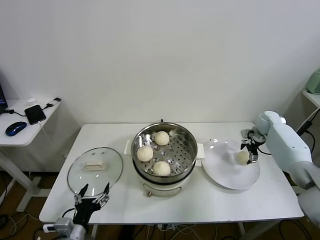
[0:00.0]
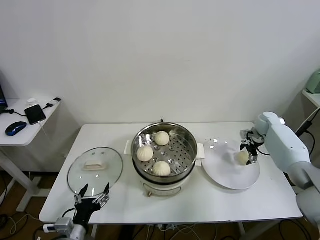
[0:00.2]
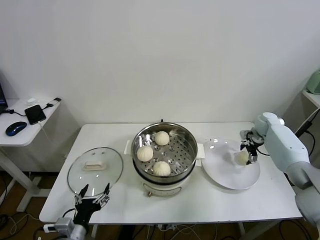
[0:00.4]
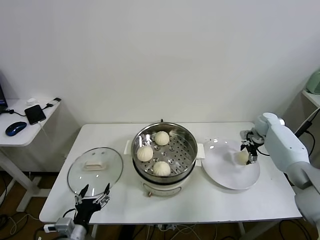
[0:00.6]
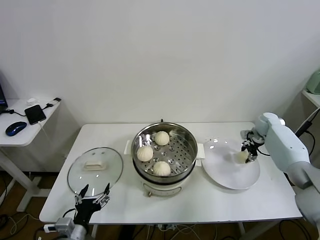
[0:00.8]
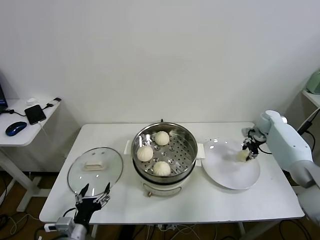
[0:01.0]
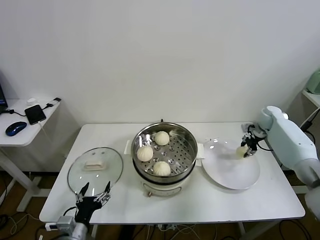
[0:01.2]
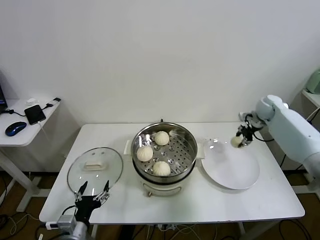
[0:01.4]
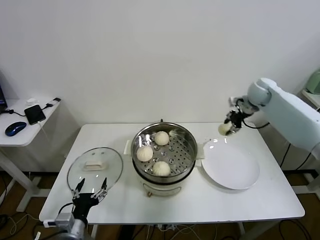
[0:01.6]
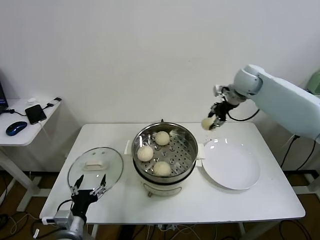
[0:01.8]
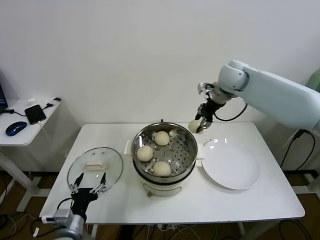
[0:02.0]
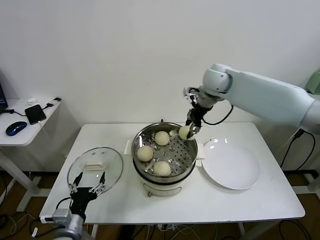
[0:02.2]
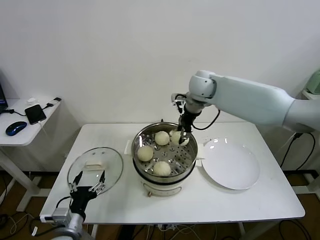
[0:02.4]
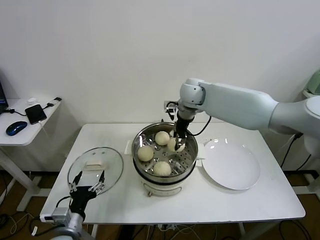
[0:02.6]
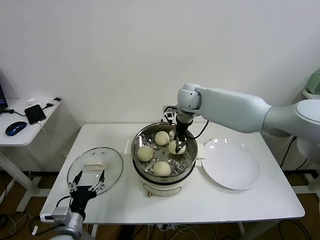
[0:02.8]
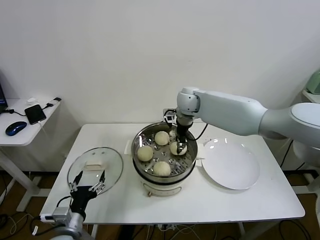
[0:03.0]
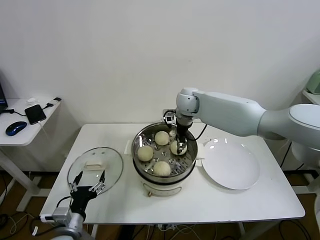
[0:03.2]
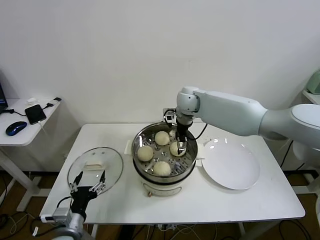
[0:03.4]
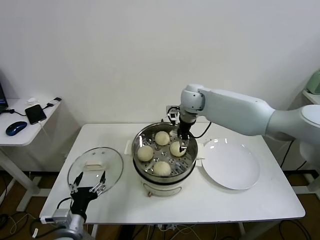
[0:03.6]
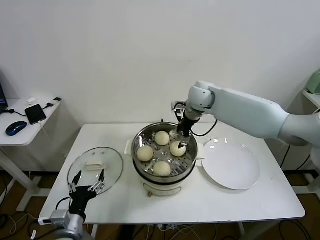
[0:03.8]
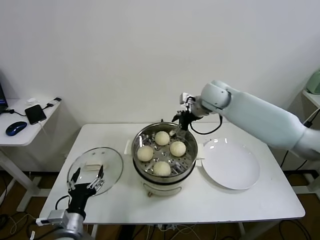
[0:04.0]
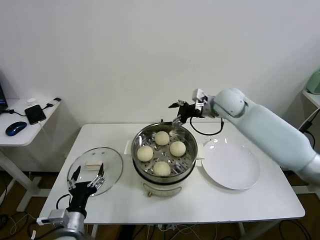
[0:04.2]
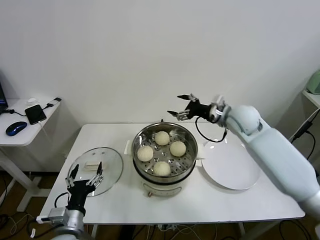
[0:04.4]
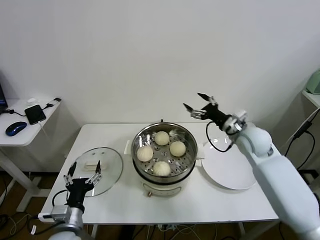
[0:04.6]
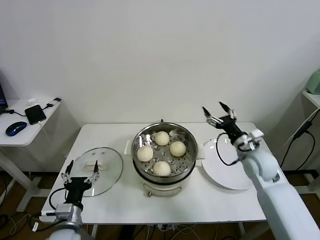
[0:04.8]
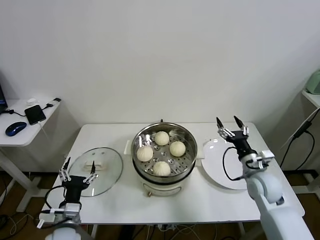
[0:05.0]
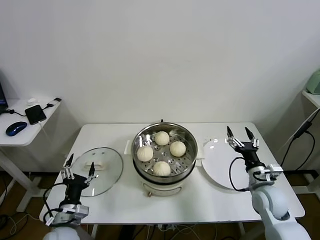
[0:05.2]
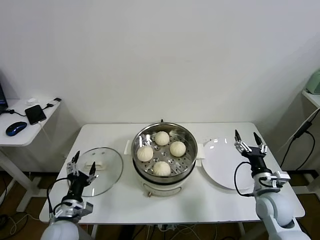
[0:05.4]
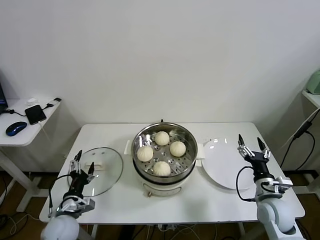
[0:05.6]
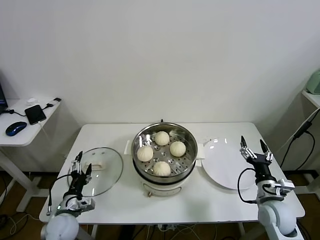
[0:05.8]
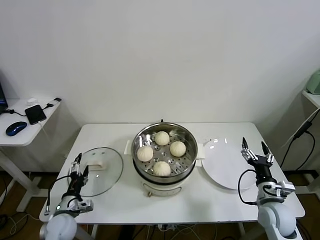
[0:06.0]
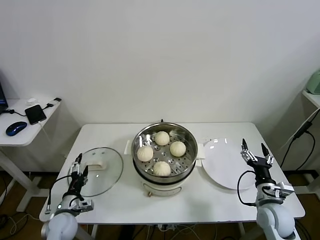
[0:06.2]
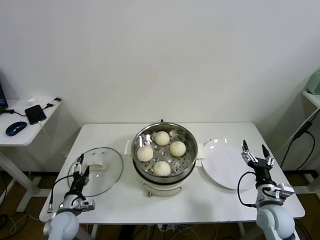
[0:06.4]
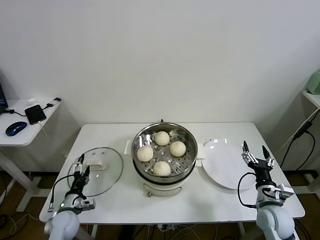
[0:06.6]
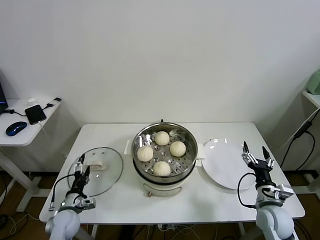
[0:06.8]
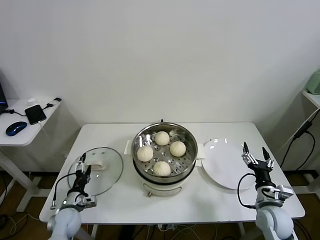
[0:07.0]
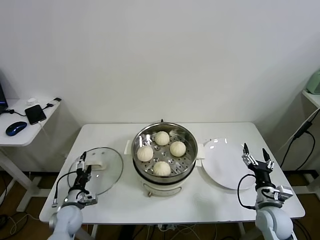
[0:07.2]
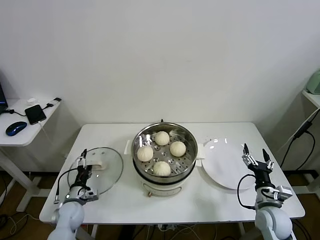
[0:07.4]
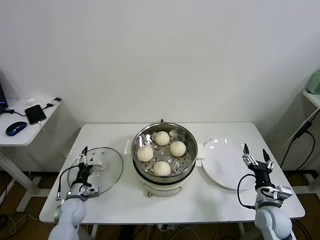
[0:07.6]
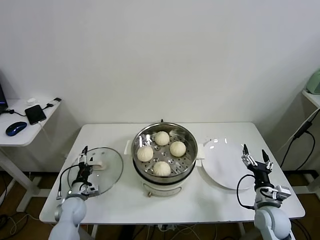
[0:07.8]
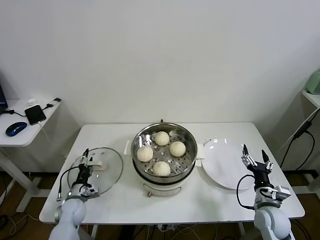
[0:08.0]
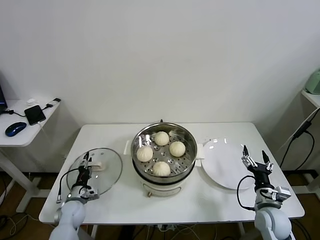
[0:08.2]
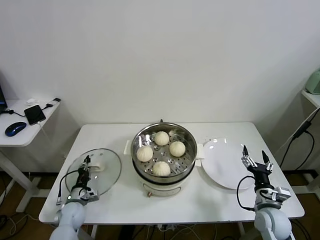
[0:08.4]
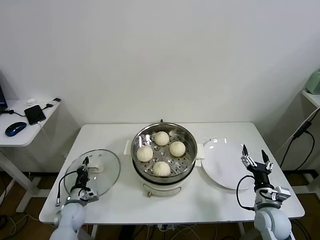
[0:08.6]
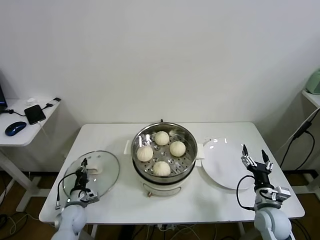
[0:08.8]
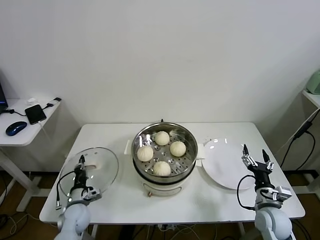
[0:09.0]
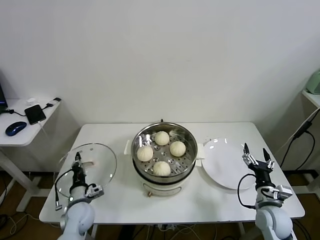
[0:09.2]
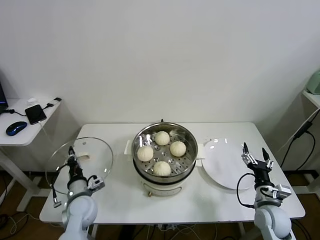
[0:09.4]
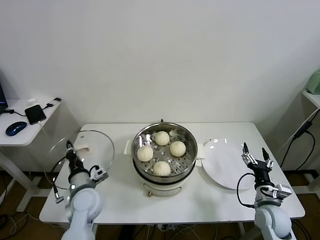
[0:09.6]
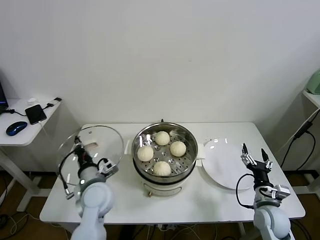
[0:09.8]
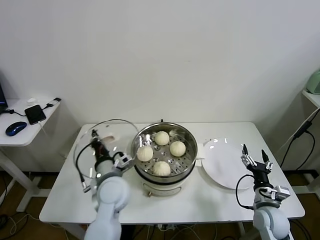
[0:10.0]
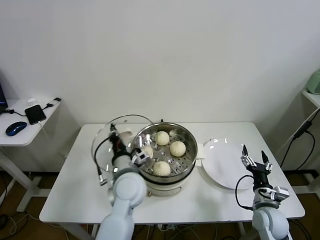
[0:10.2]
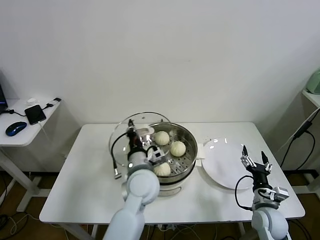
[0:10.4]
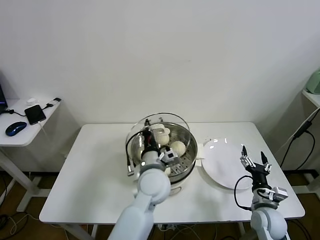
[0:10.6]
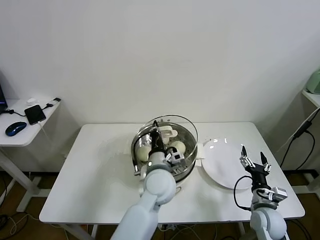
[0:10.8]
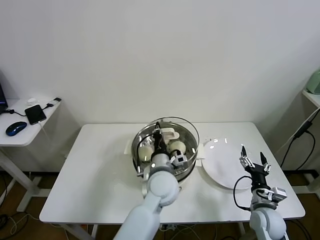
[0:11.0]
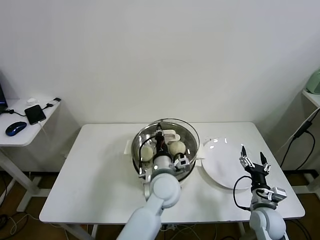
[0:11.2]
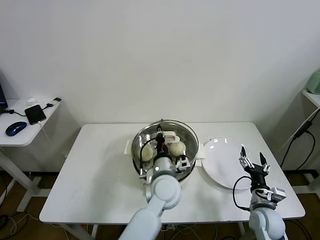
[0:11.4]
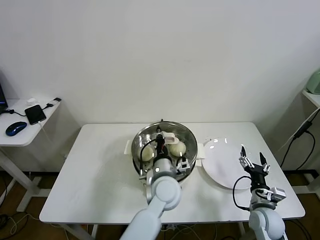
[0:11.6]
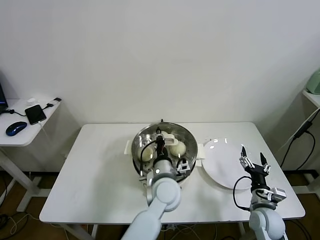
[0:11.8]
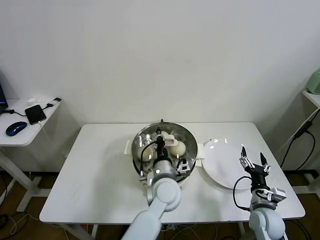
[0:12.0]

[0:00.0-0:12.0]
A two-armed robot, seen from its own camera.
Task of the whole recording: take steamed baozi put them in steamer.
Step, 0:01.0 to 0:03.4: Place the baozi on the steamer with right gripper.
Step, 0:03.6 to 0:08.4: Grasp the pot lid with left gripper.
0:00.0 to 0:01.6: The right gripper moves upward and to the left, roughly 20 cm, and closes.
0:01.6 to 0:03.0: The right gripper heads to the left, covering roughly 25 cm.
0:03.0 to 0:04.4: The right gripper moves to the right and backward, about 20 cm, and opens up.
0:04.4 to 0:06.0: The left gripper shifts approximately 15 cm downward, forward and to the left; the right gripper is displaced backward, downward and to the right by some 35 cm.
0:06.0 to 0:07.6: The left gripper shifts approximately 5 cm forward.
0:07.6 to 0:09.0: The left gripper closes its fingers.
0:09.0 to 0:10.4: The left gripper travels to the right and upward by about 35 cm.
0:10.4 to 0:12.0: The left gripper travels to the right by about 10 cm.

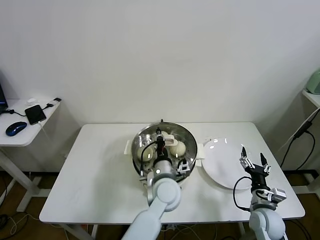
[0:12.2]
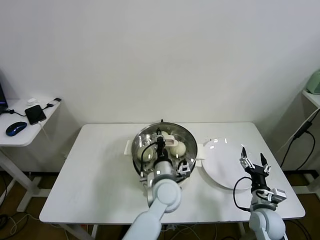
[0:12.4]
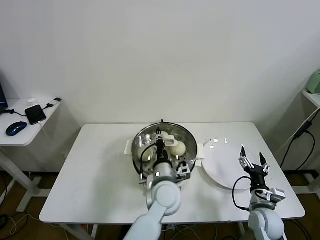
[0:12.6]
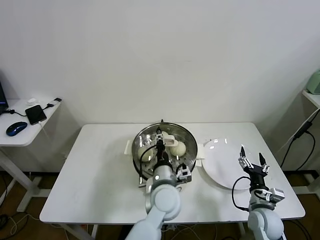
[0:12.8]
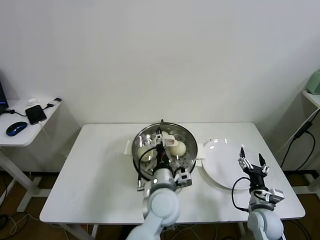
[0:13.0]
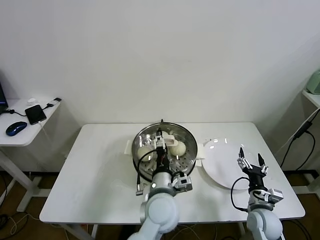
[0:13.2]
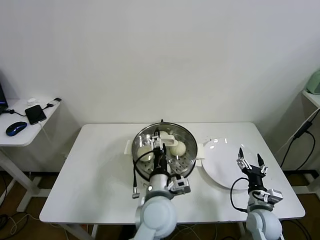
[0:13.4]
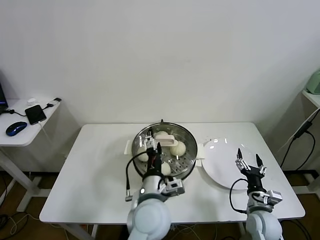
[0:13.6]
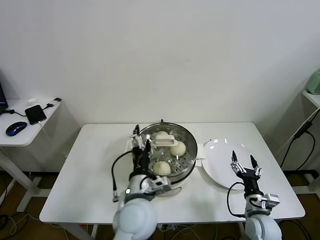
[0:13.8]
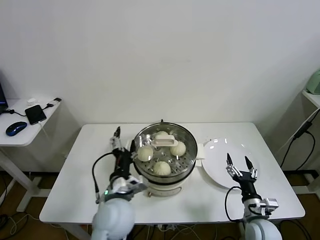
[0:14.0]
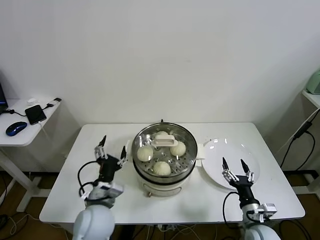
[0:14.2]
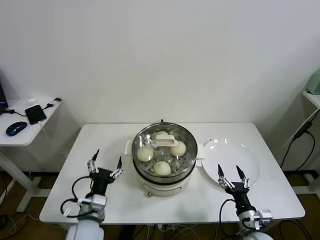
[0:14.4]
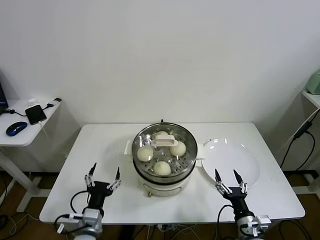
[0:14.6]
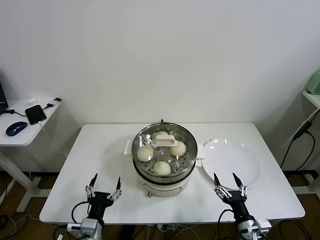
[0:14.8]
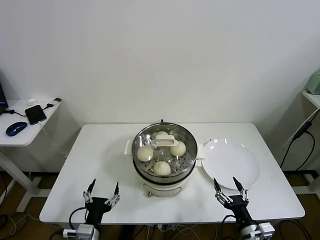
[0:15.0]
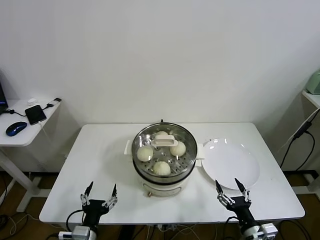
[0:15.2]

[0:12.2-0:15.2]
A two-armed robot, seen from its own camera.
Task of the whole recording: take steamed baozi put them in steamer.
0:12.2 to 0:13.8: The left gripper moves backward, to the left and upward, about 10 cm, and opens.
0:13.8 to 0:15.2: The left gripper goes roughly 25 cm to the left, downward and backward; the right gripper moves backward, about 10 cm.
